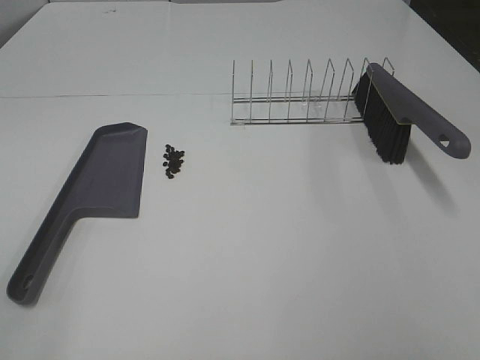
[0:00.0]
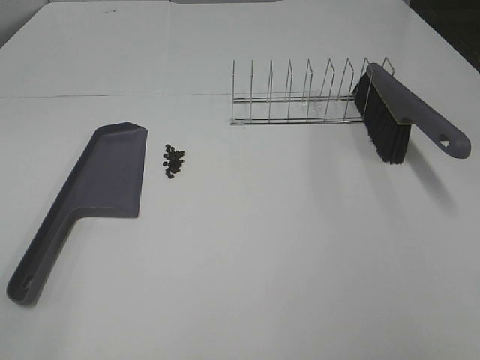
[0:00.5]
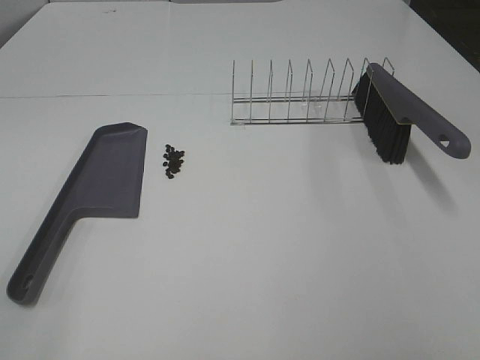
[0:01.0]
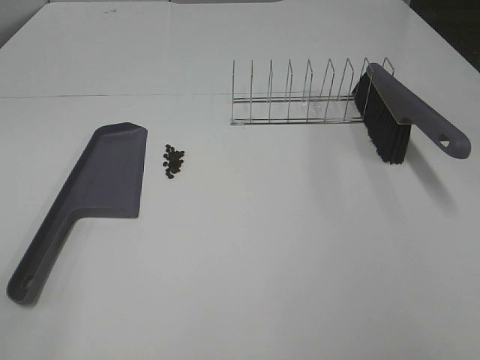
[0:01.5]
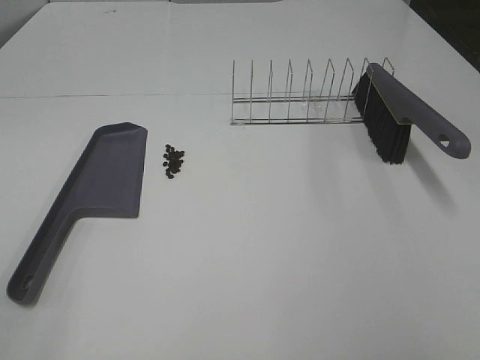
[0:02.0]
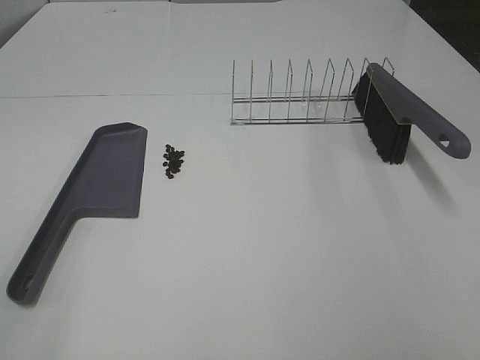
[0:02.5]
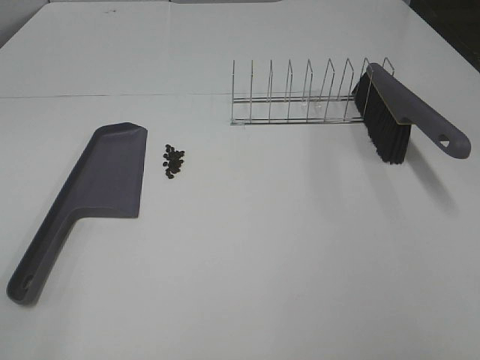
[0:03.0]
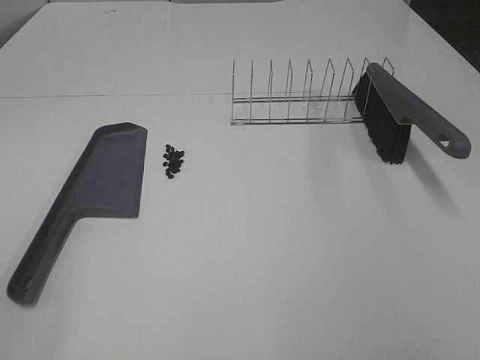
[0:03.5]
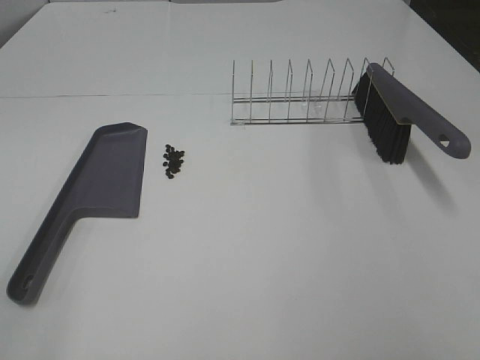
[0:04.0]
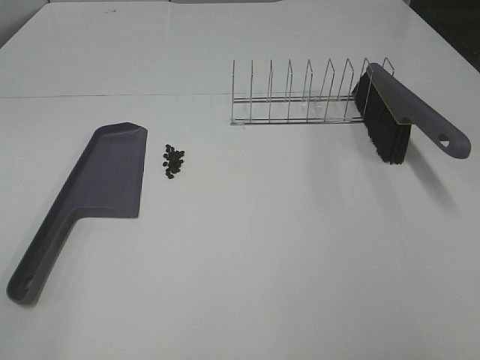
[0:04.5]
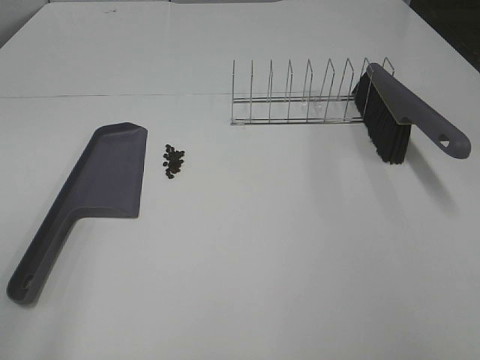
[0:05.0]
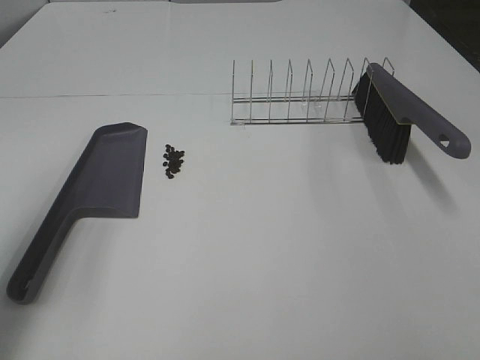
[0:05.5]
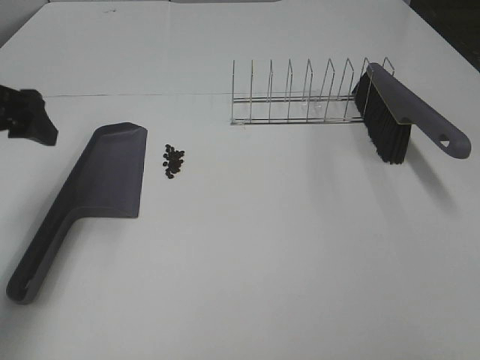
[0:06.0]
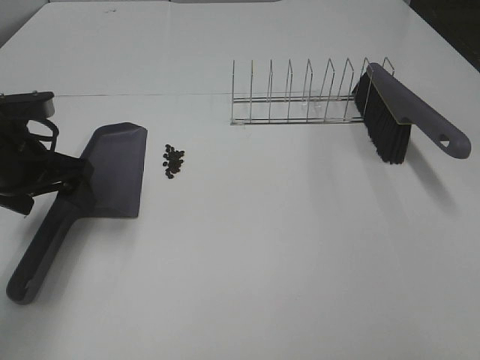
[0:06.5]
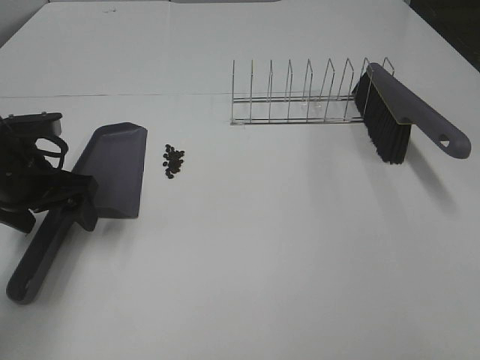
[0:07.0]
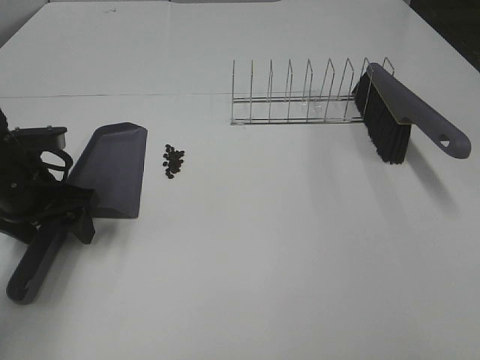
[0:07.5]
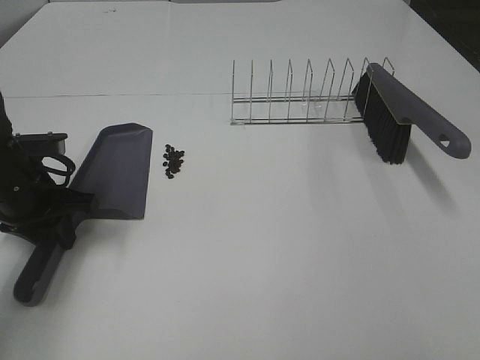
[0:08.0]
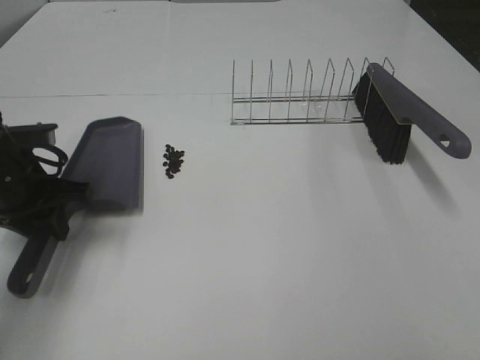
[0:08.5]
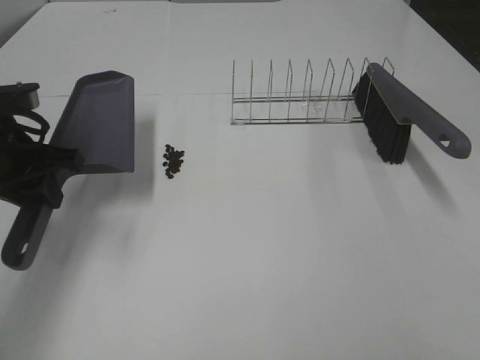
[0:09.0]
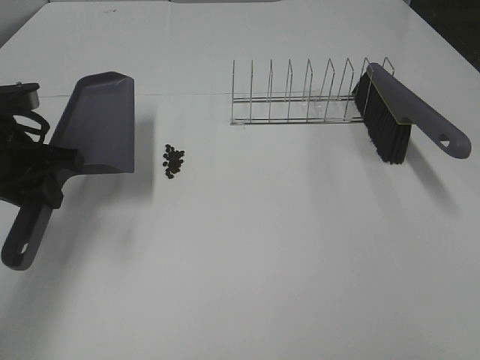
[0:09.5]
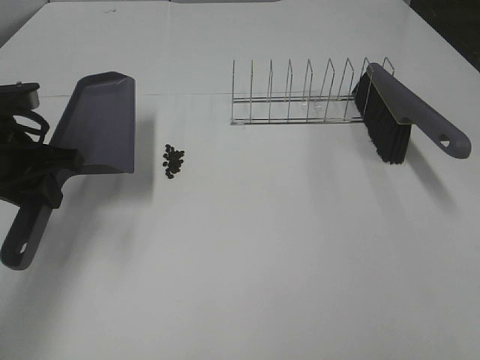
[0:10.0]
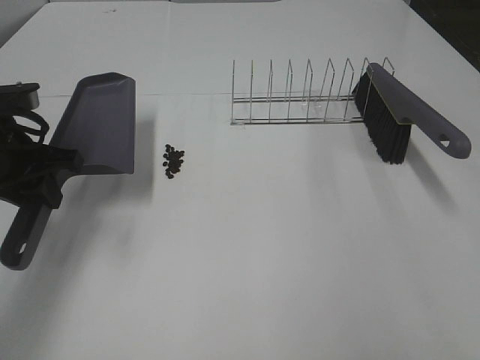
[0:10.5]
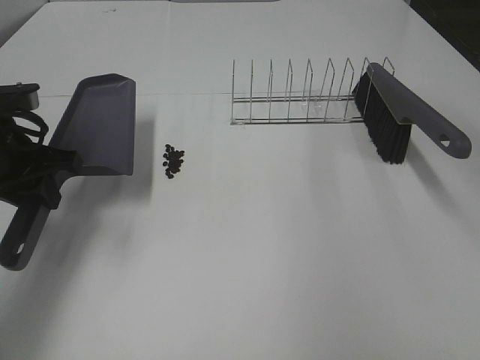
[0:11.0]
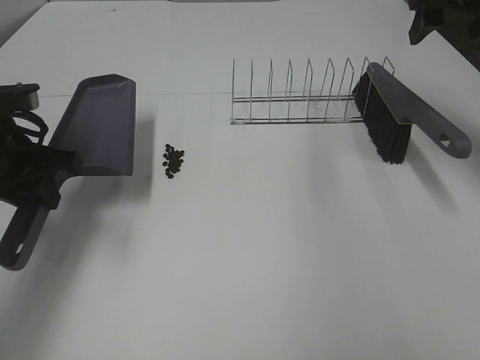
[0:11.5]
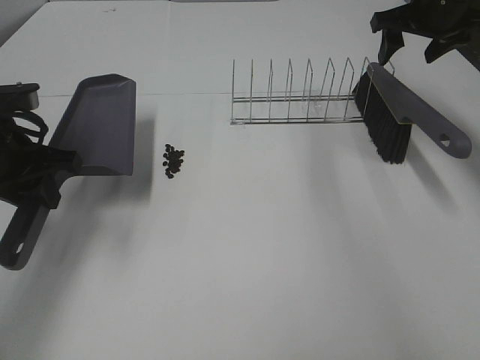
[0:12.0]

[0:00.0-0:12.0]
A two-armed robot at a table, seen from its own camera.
Task of the whole recording: Sweep Coffee Bean.
Step, 0:00.0 to 0:08.0: Left hand: grab the dustpan.
0:00.0 to 0:04.0: Both grippers stay about where they are.
0:04.0 to 0:06.0: The left gripper goes approximately 30 cm forward.
0:06.0 to 0:08.0: The left gripper shifts some 10 cm downward, and closes its fingers.
0:08.0 to 0:10.0: The left gripper moves upward, some 5 cm.
0:10.0 to 0:12.0: The right gripper shifts roughly 50 cm forward.

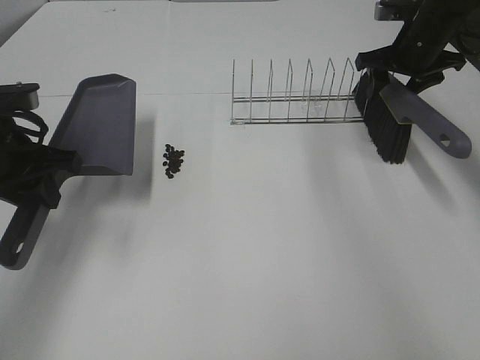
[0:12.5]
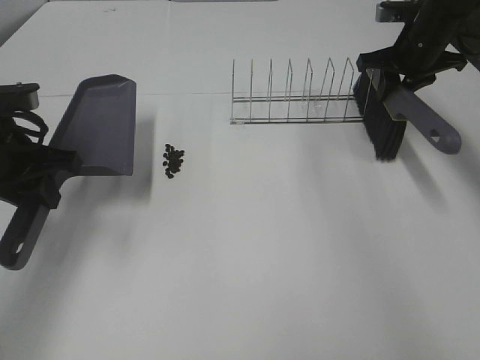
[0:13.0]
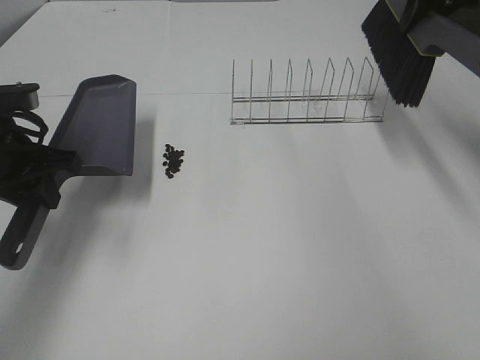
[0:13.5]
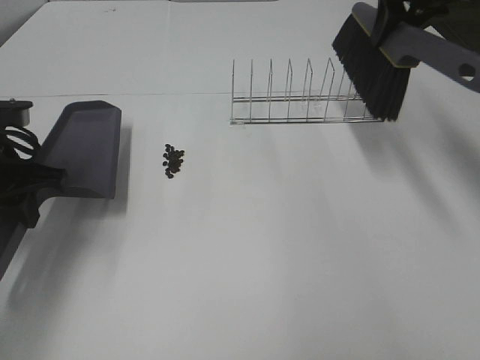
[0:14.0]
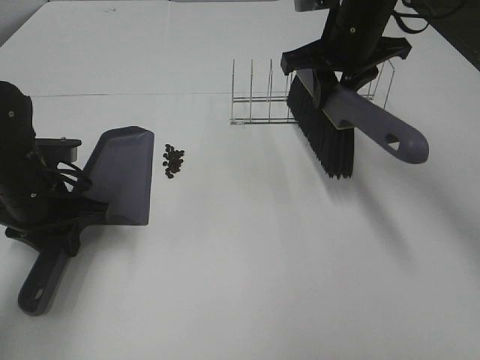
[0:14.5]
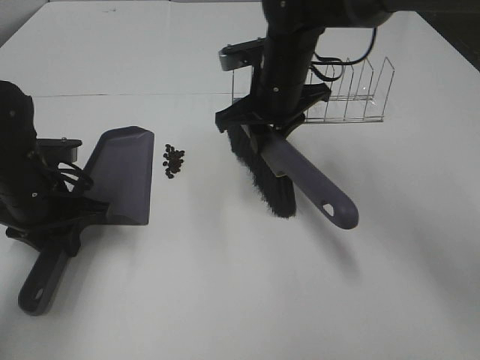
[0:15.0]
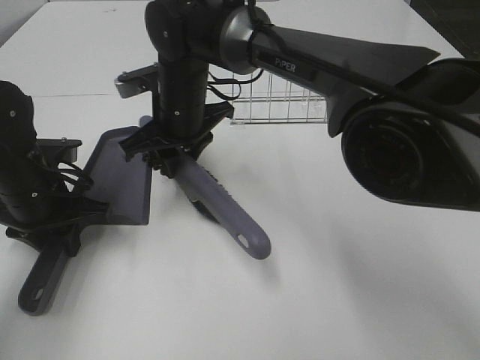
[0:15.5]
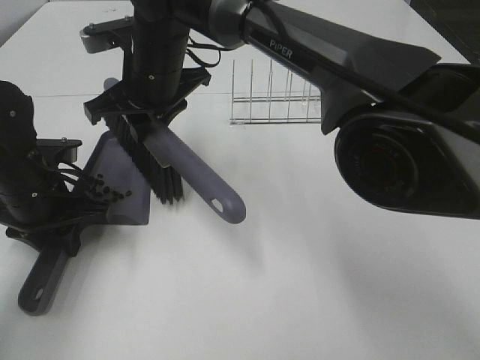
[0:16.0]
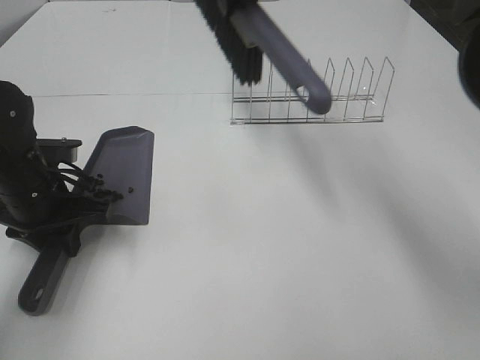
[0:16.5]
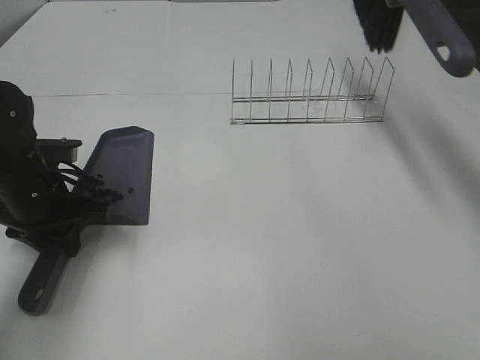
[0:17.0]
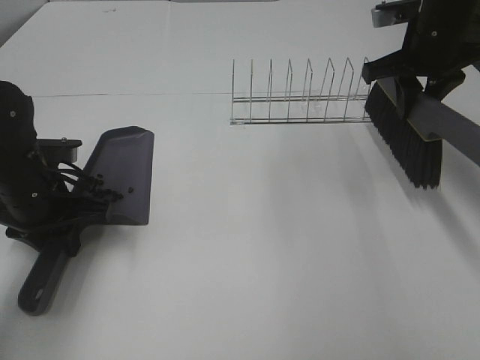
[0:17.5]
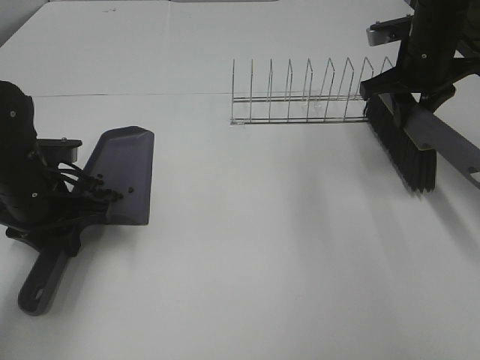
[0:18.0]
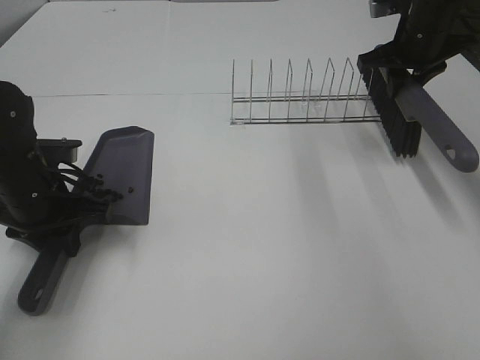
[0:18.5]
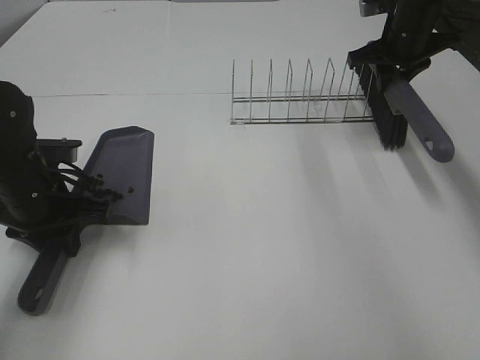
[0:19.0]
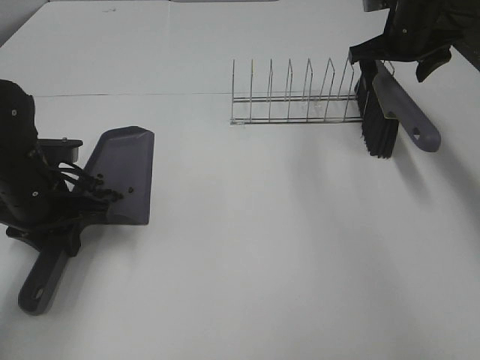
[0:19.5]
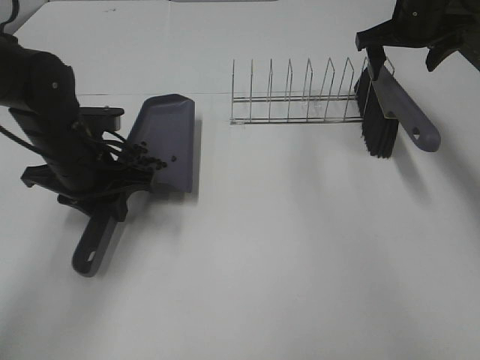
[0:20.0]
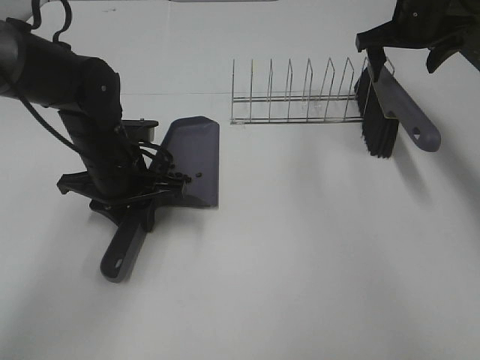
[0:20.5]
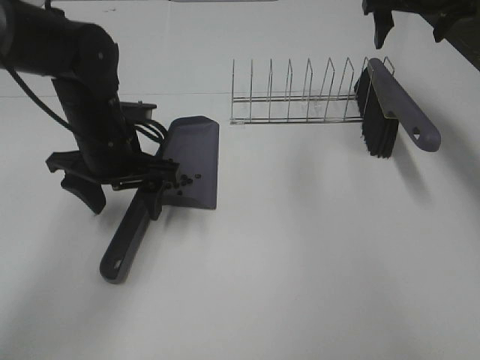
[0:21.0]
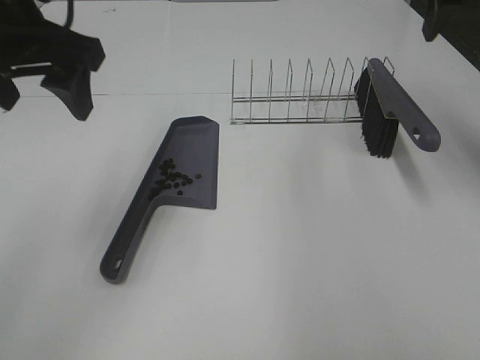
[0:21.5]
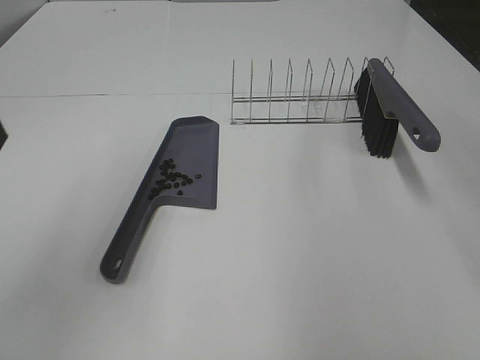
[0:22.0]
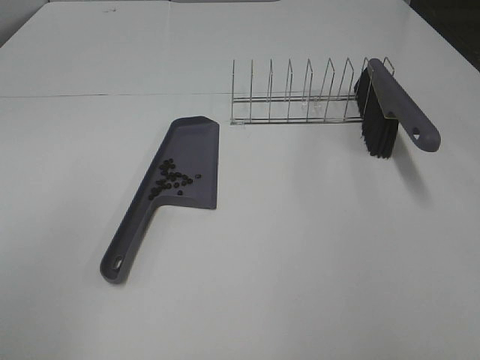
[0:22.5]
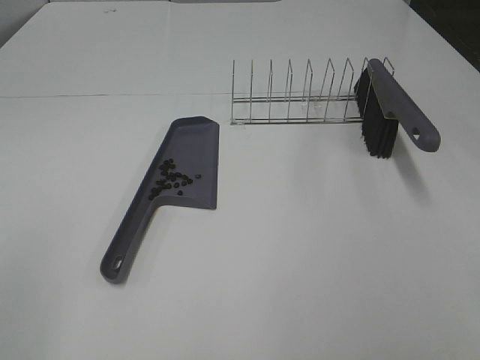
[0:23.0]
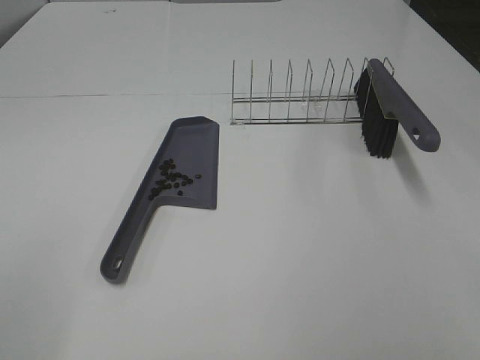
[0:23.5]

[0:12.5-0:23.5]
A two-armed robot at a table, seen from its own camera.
Task of the whole recording: Sweep Coffee Bean.
Step, 0:12.5 to 0:14.5: Left hand: move the dustpan to the left side of the coffee beans.
Step, 0:13.0 to 0:16.0: Right hand:sweep the coffee beans into the dustpan.
Step, 0:16.5 to 0:19.5: Right hand:place the broom on the rack.
Step, 0:20.0 to 0:21.0: Left hand:place the dustpan on the table.
0:12.5 to 0:14.5: The left gripper moves downward, approximately 5 cm, while the right gripper is displaced to the left and backward by about 15 cm, and closes up.
0:14.5 to 0:16.0: The right gripper heads to the left, covering about 25 cm.
0:16.0 to 0:18.0: The right gripper shifts roughly 35 cm to the right.
0:18.0 to 0:20.0: The left gripper goes about 5 cm to the right. Meanwhile the right gripper is displaced forward by roughly 5 cm, and opens its fingers.
0:20.0 to 0:21.5: The right gripper shifts approximately 20 cm backward and upward. The left gripper moves upward, about 20 cm, and opens up.
0:21.5 to 0:23.5: The left gripper travels backward and to the left by roughly 30 cm. The right gripper shifts approximately 35 cm backward.

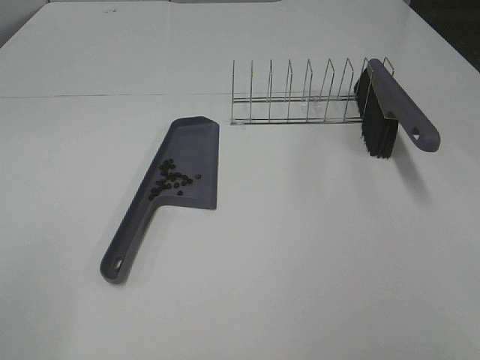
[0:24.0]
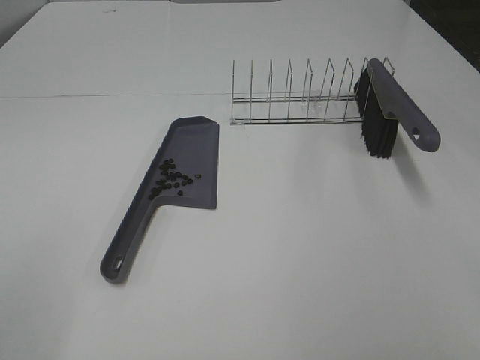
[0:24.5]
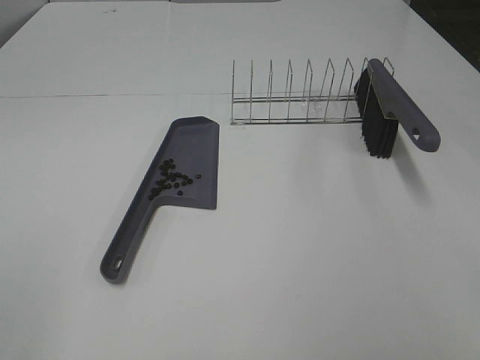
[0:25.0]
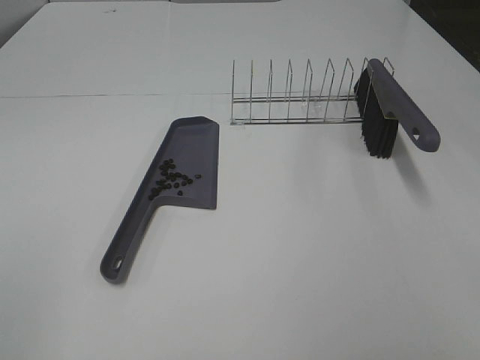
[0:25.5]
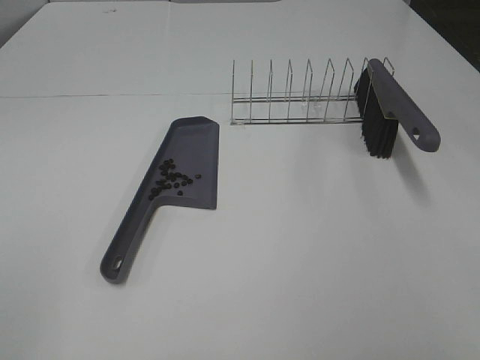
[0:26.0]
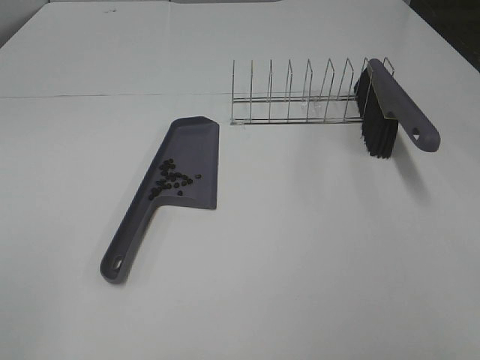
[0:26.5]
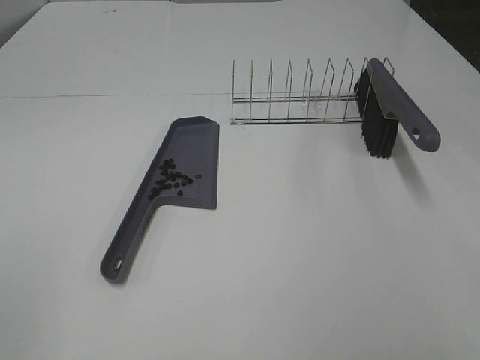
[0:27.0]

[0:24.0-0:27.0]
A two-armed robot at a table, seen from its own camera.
Task of the whole recording: Sweep Coffee Bean.
0:25.5 to 0:27.0: Both grippers stay put.
